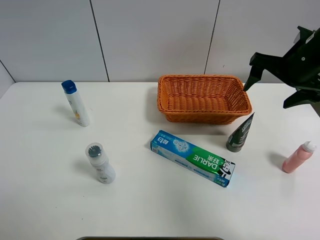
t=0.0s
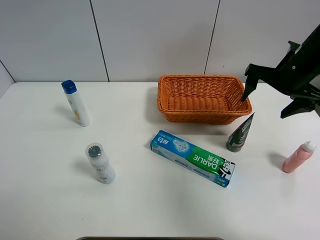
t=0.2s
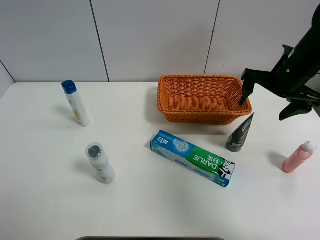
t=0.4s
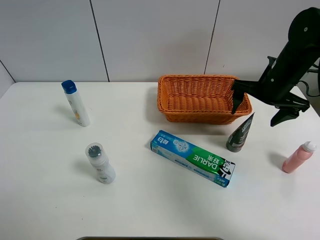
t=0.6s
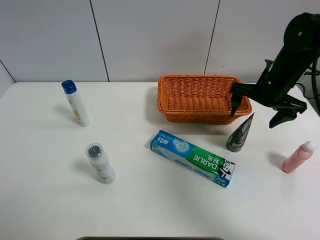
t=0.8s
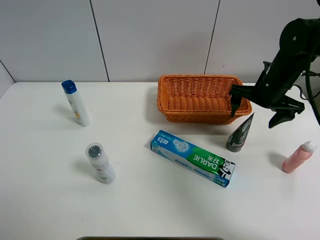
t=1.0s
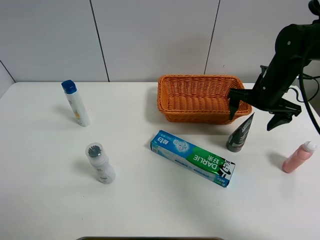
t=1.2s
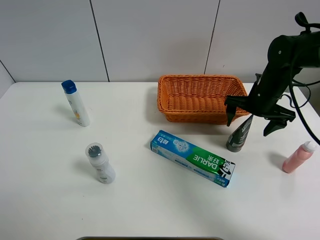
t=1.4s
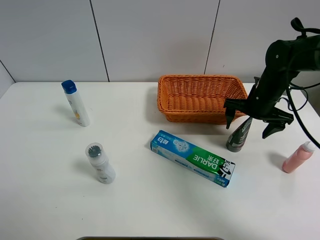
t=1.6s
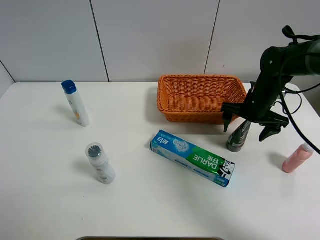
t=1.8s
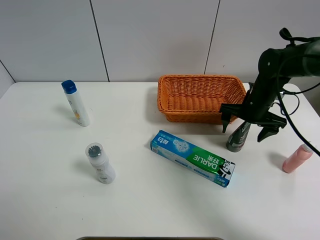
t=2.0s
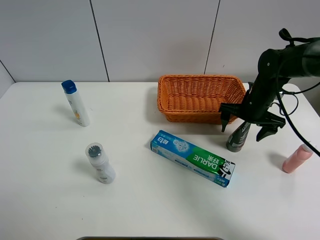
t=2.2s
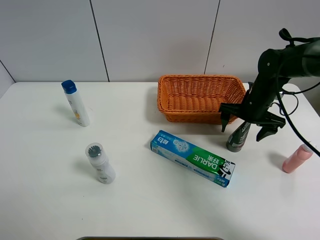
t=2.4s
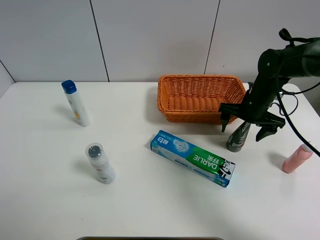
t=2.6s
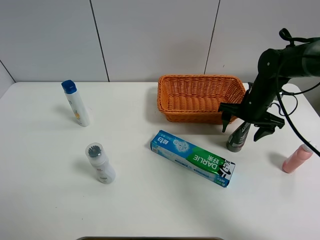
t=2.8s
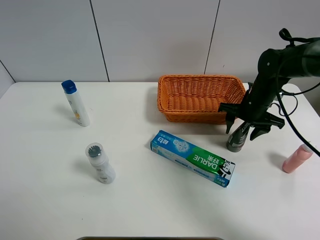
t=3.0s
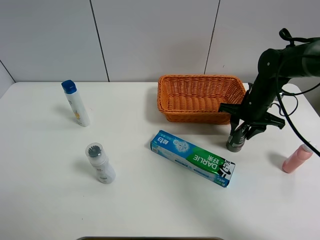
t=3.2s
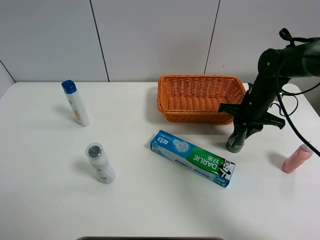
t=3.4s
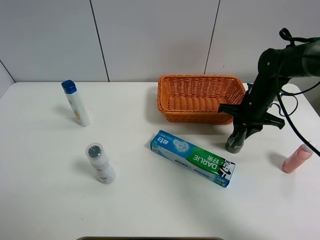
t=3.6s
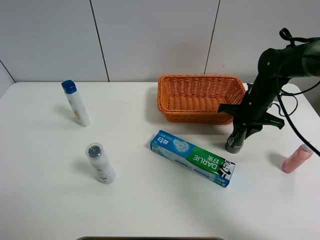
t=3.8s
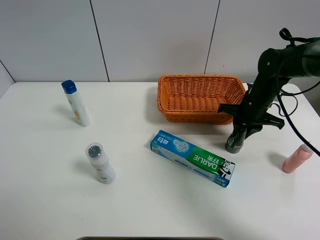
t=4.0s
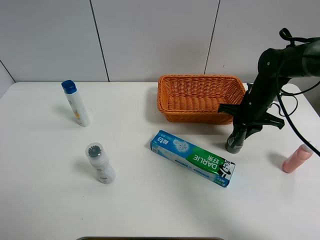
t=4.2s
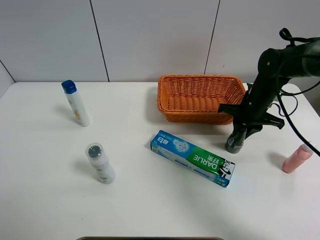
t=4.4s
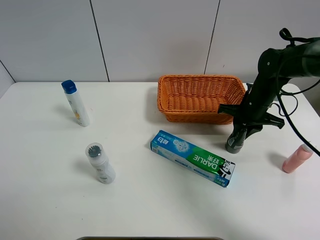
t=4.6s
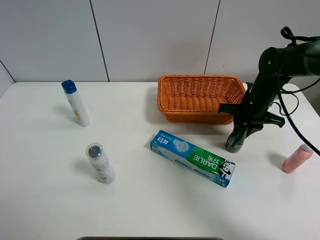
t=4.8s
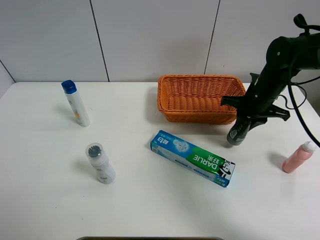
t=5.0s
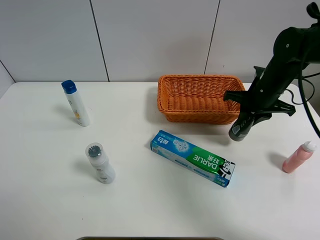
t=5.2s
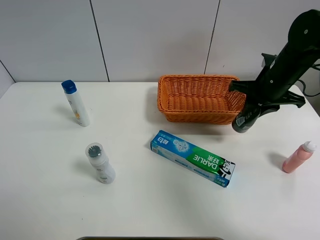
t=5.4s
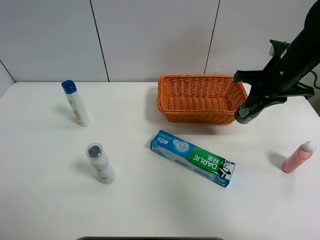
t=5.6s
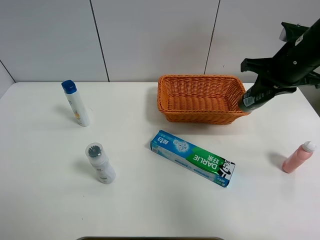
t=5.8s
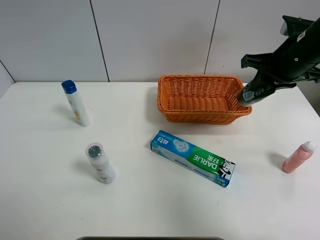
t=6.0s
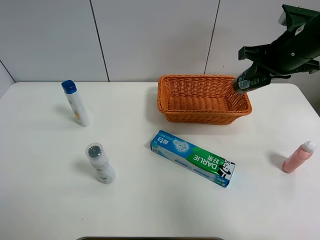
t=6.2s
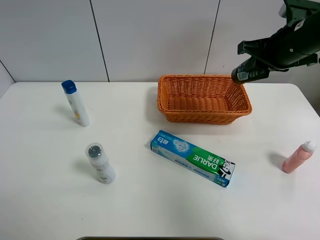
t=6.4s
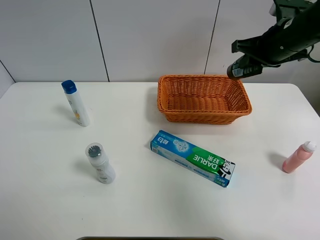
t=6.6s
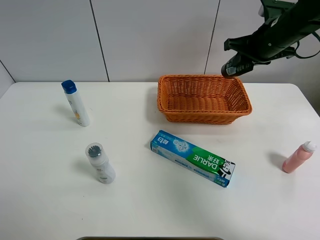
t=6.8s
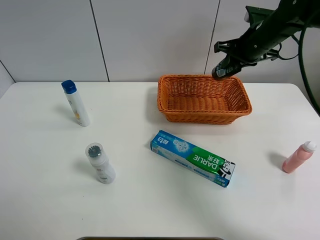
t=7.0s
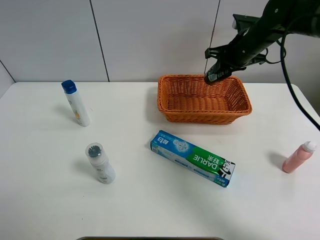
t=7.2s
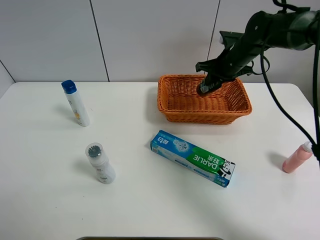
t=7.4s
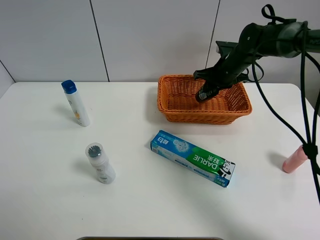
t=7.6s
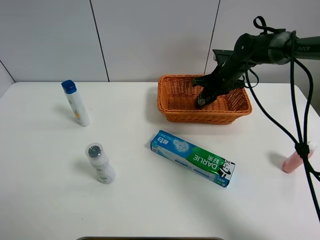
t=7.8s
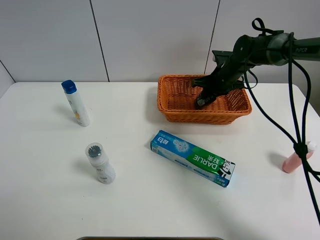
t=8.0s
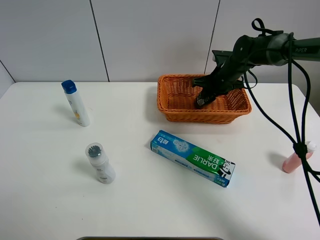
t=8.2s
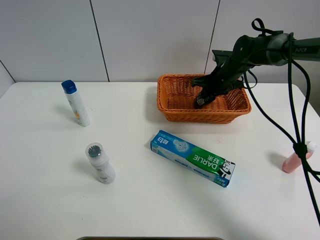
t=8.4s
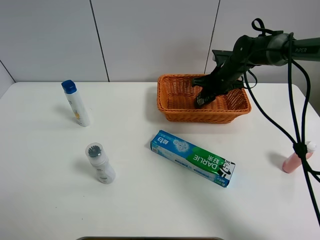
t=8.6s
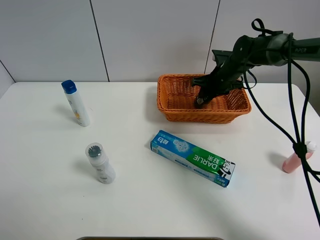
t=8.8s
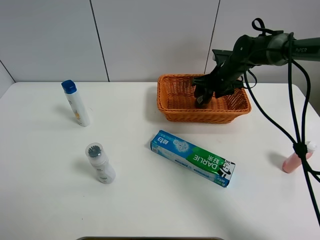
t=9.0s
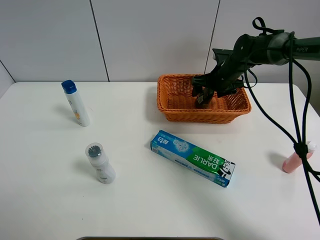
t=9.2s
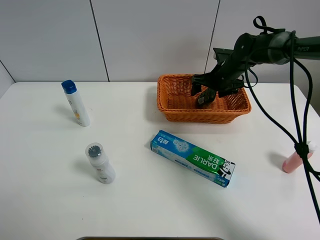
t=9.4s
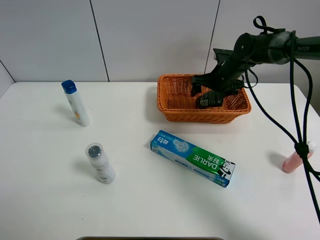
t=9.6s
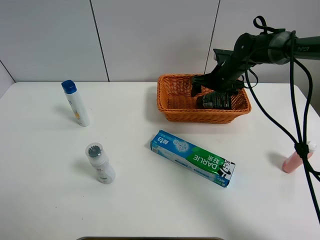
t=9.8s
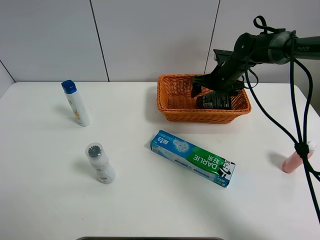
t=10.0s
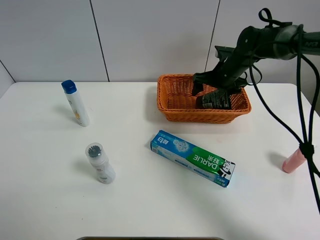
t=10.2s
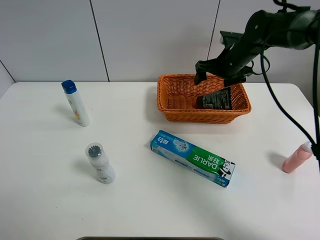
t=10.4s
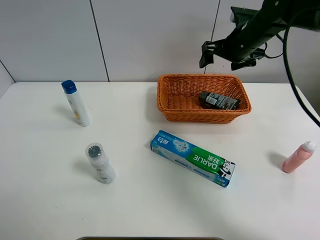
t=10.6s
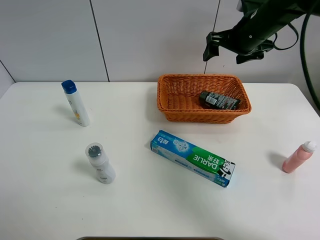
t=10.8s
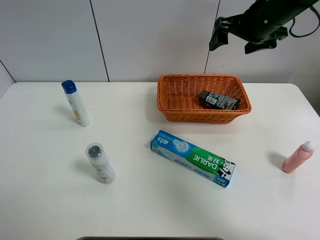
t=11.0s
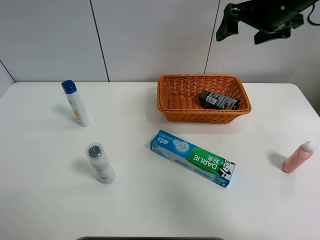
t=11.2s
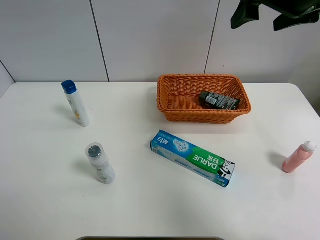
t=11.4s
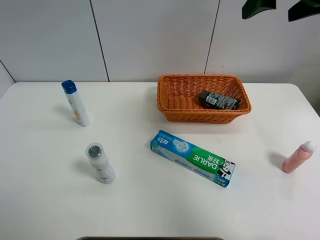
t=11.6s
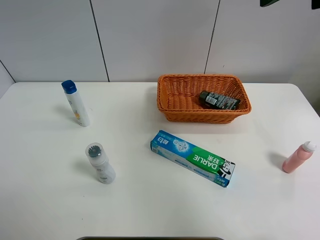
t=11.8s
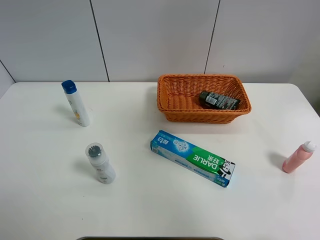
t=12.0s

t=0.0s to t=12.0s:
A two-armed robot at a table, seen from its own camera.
Task of the whole recording: Place the object closest to the toothpaste in the basket.
Step, t=0.0s to t=3.4s: Grasp the soft facial cleanser with right gripper.
Step, t=3.6s to t=10.4s: Place the soft facial cleanser in the basket with right gripper.
t=0.0s to t=1.6s: The right gripper is displaced downward by approximately 15 cm.
t=1.6s to t=3.0s: The right gripper closes its fingers.
t=3.0s to t=4.4s: The right gripper closes its fingers.
t=4.4s to t=6.0s: The right gripper heads upward, covering some 15 cm.
t=6.0s to t=7.6s: The right gripper is displaced forward and downward by some 20 cm.
t=7.6s to t=9.0s: The right gripper opens up.
t=9.0s to t=10.4s: The right gripper goes approximately 5 cm upward.
t=10.4s to t=12.0s: The right gripper shifts some 35 cm upward and backward.

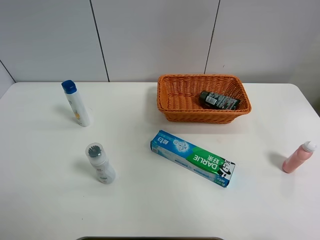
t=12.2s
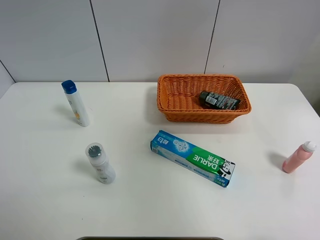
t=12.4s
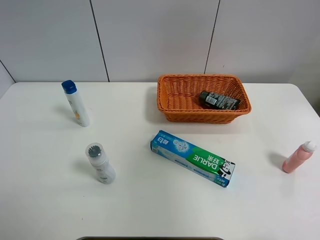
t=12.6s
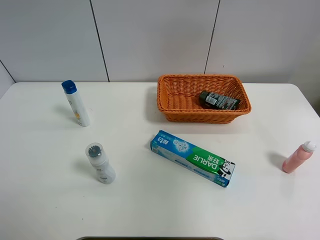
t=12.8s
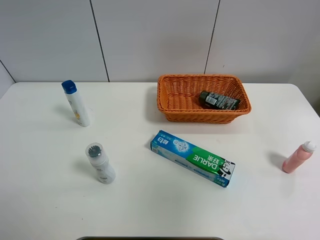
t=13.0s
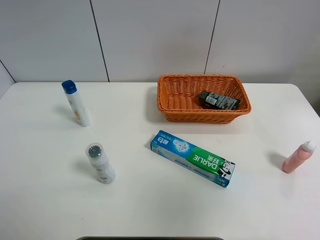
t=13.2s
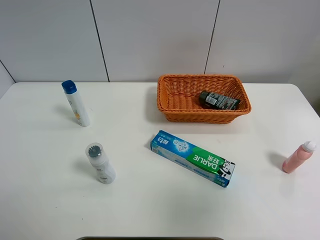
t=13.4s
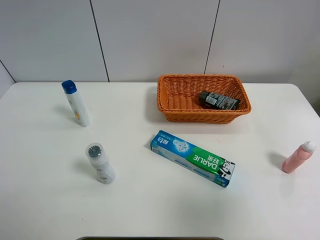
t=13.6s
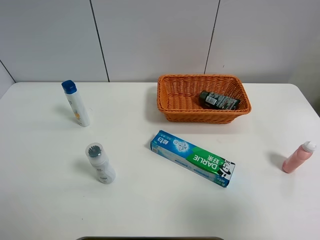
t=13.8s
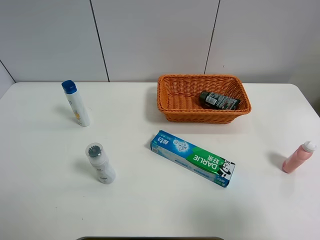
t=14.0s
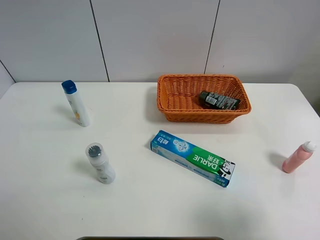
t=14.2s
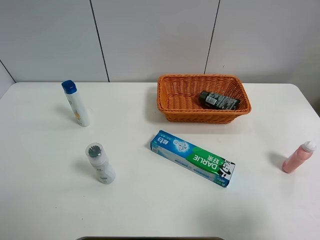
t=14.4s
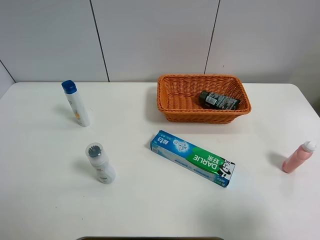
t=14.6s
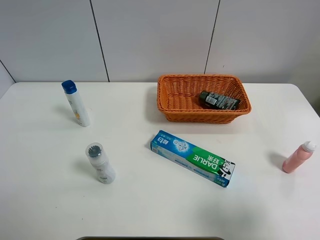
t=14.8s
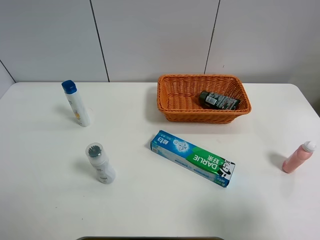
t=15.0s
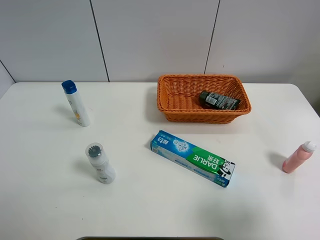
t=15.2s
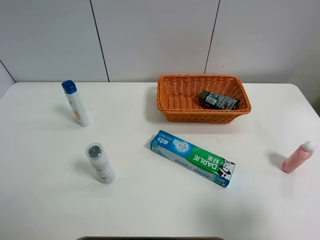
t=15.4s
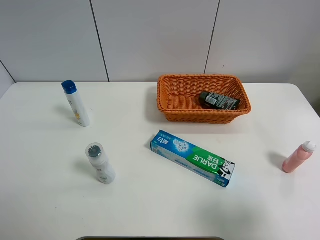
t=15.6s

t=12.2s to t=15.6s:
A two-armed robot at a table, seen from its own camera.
Task of the whole recording: Place the object closest to the toothpaste in the basket.
t=12.2s to t=13.8s: The right gripper goes about 25 cm backward and downward.
t=13.8s to t=15.6s: The right gripper shifts approximately 5 cm downward.
